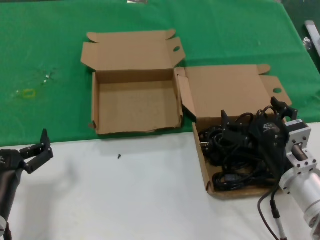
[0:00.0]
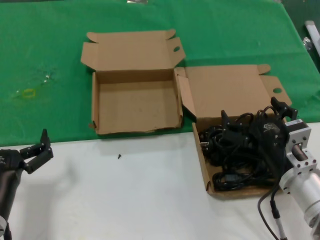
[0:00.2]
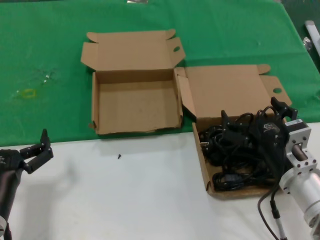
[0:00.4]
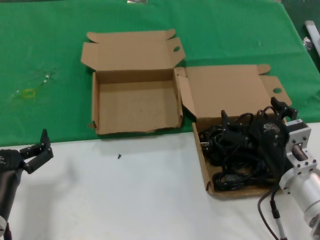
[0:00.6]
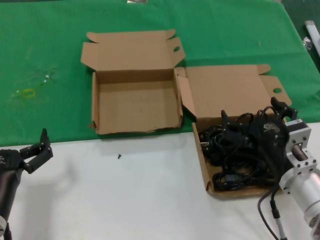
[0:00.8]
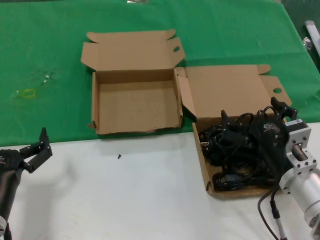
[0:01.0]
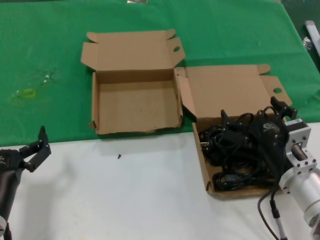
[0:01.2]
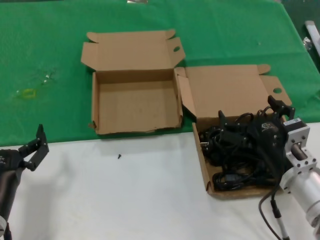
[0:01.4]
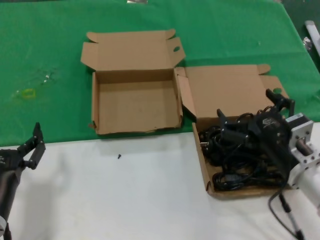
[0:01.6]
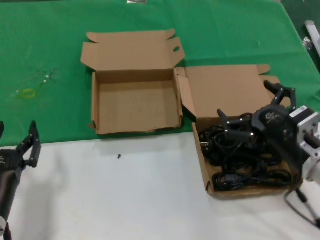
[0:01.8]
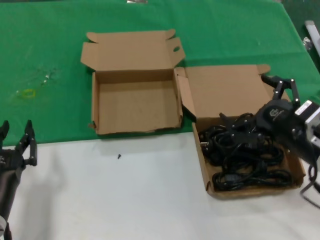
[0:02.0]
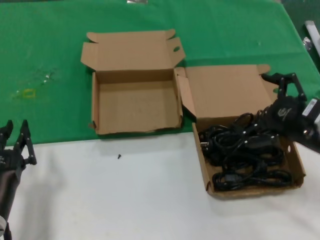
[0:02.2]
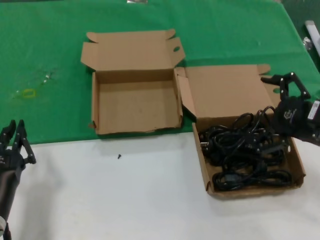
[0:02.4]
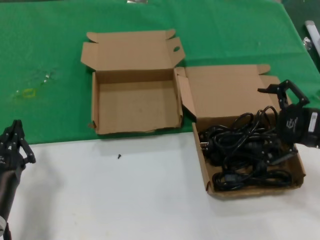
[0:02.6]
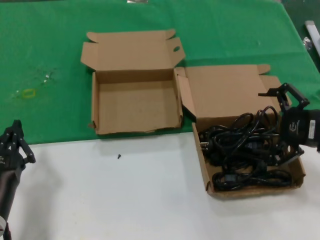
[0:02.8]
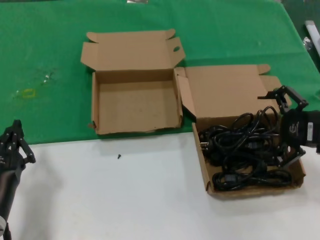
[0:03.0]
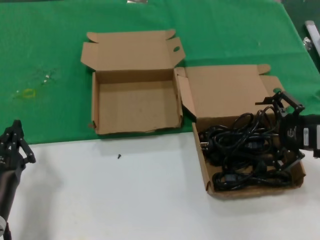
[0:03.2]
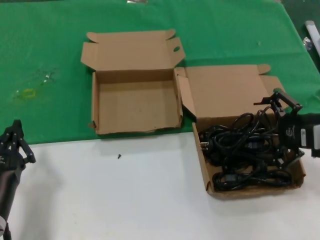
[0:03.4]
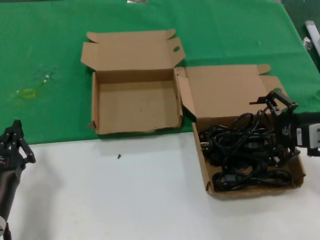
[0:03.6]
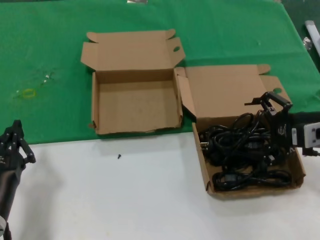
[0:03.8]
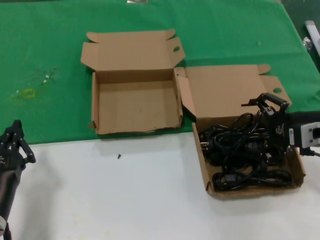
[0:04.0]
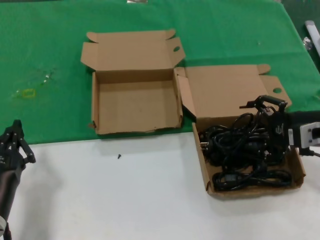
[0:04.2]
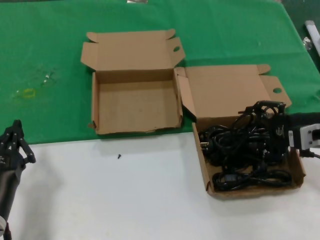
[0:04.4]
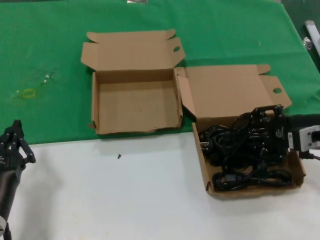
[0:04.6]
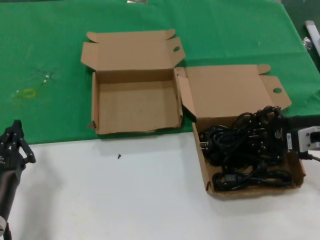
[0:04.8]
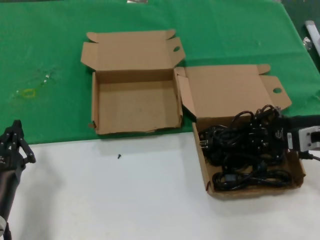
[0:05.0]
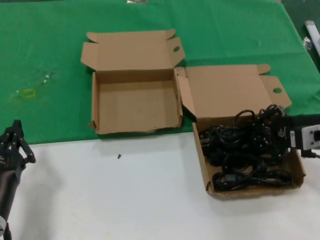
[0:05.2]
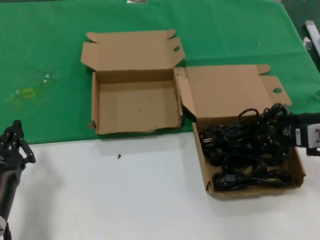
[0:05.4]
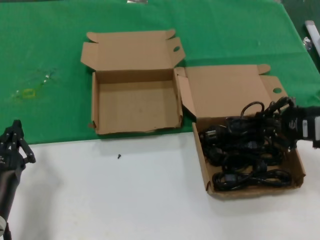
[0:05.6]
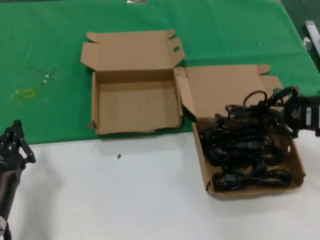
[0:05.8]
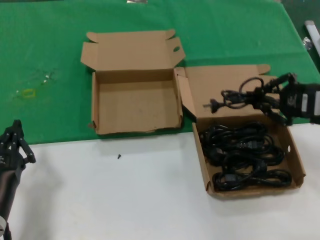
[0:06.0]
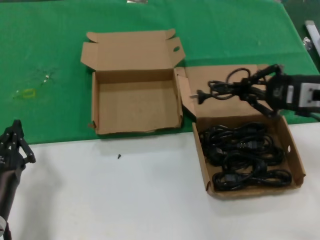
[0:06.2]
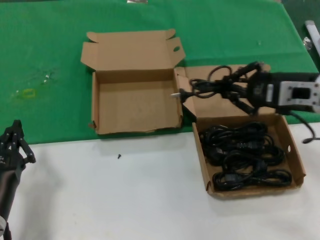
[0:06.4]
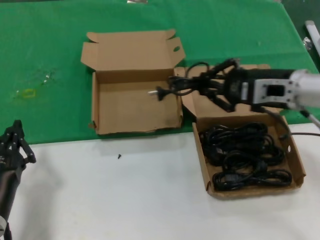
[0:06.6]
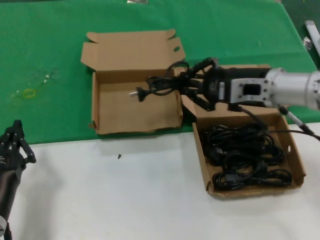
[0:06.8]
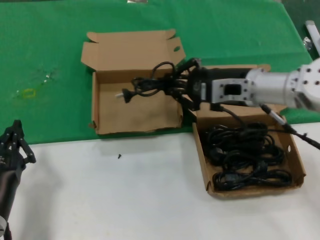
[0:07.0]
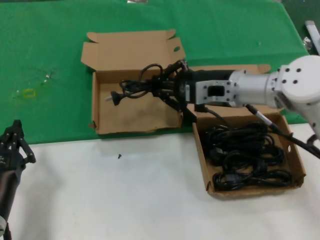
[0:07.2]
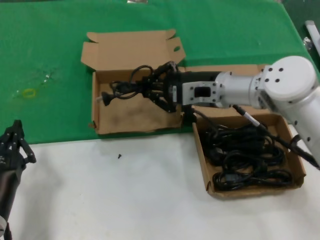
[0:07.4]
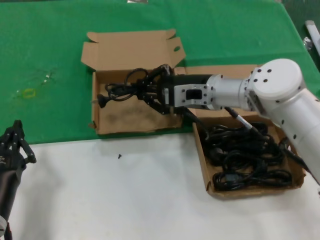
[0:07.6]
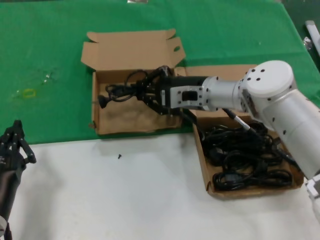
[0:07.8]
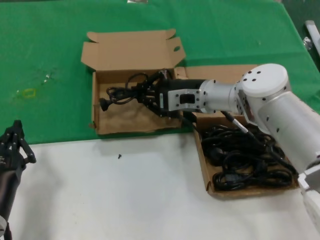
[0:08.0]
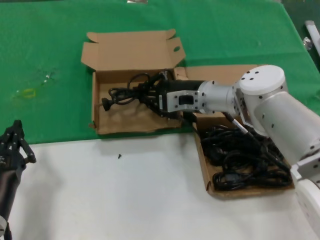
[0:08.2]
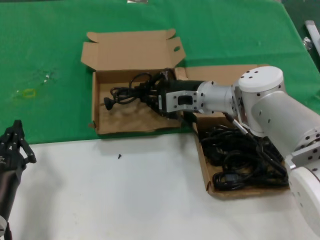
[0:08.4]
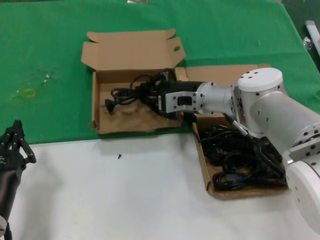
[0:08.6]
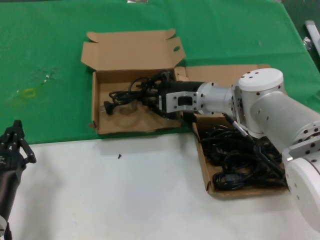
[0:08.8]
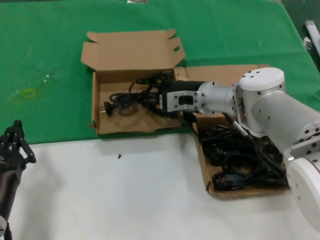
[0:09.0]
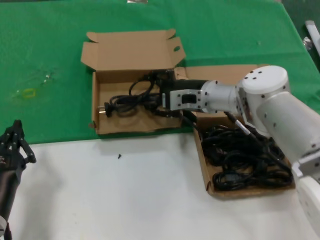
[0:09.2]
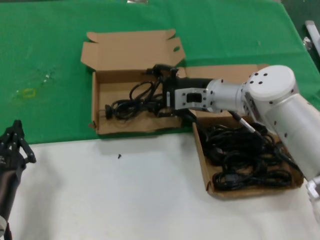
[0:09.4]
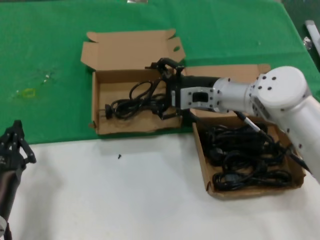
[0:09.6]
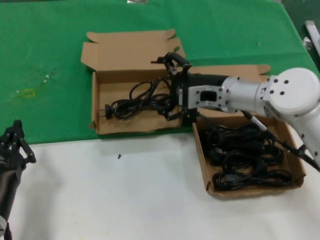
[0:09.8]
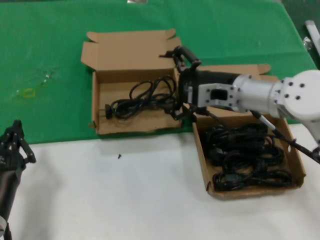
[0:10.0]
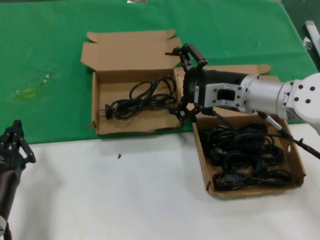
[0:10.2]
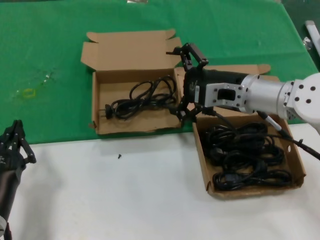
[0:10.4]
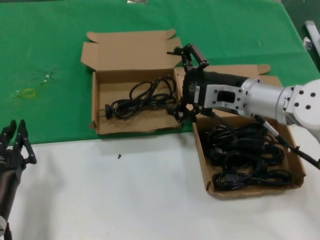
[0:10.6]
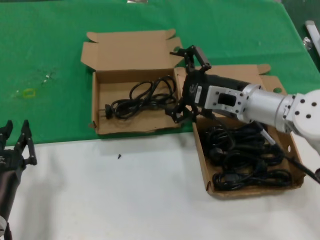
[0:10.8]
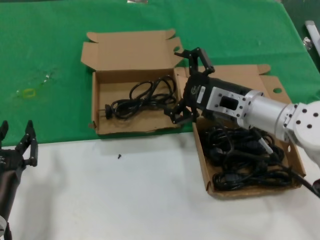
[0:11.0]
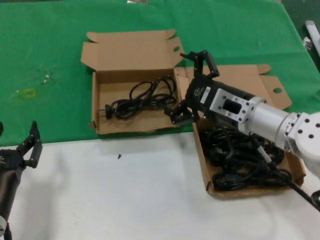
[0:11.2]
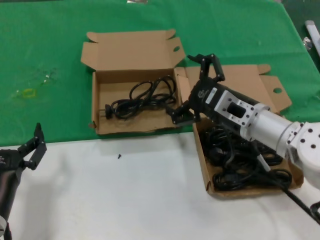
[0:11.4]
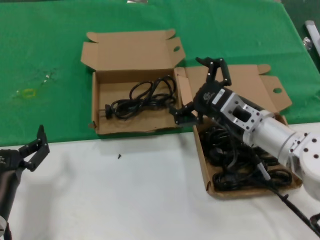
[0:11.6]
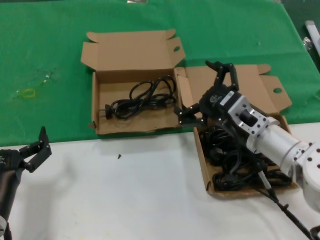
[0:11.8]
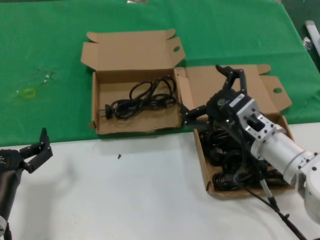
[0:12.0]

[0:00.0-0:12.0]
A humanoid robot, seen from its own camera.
Task of the whole recording: take the parts from the box containing them and put them into an empty box.
Step, 0:00.0 to 0:05.0: Grasp the data cable.
Step, 0:05.2 to 0:09.2: Place the data cable in the another box.
0:00.0 to 0:01.6: The hands move only a little.
0:01.6 to 0:03.0: The right hand moves to the right and upward, some 15 cm.
0:03.0 to 0:04.4: The right hand changes place by some 5 cm.
0:04.4 to 0:06.0: The right hand moves about 5 cm.
0:06.0 to 0:07.6: The right hand heads to the left and forward, covering approximately 25 cm.
0:07.6 to 0:09.0: The right hand changes place by some 5 cm.
0:09.0 to 0:10.4: The right hand shifts roughly 10 cm backward, upward and to the right.
0:10.4 to 0:12.0: The right hand moves downward and backward, roughly 10 cm.

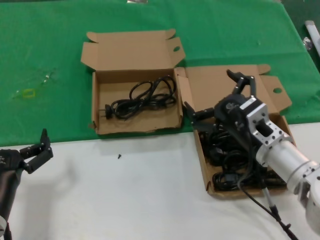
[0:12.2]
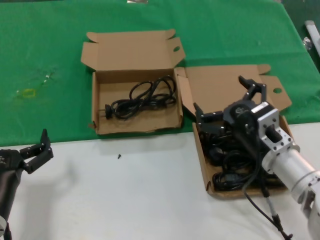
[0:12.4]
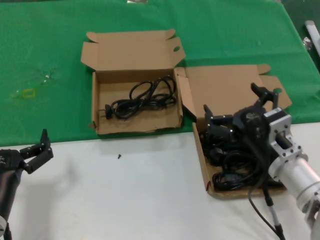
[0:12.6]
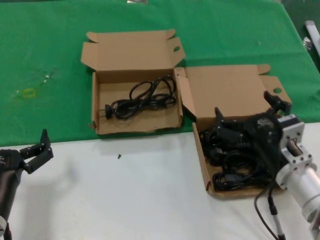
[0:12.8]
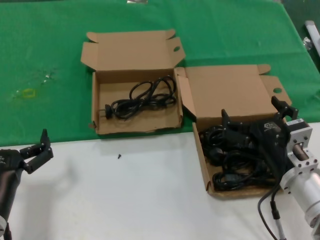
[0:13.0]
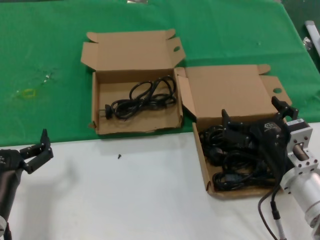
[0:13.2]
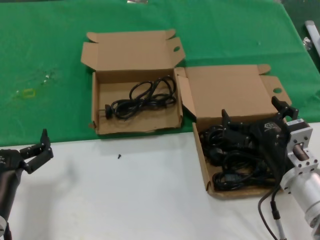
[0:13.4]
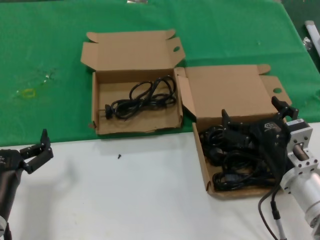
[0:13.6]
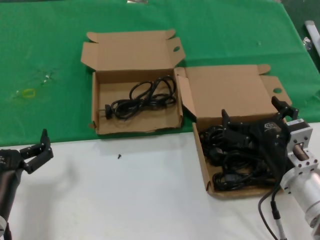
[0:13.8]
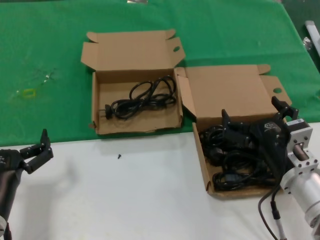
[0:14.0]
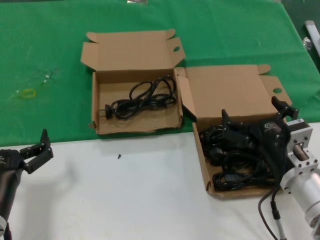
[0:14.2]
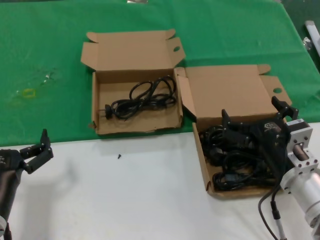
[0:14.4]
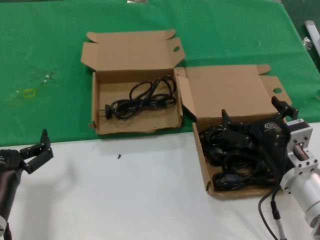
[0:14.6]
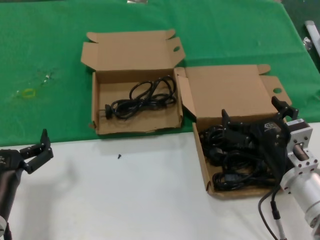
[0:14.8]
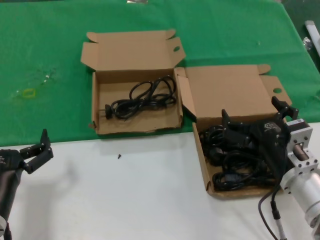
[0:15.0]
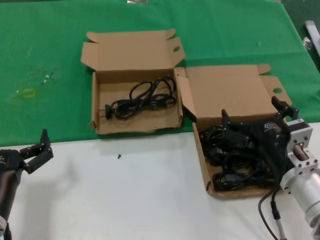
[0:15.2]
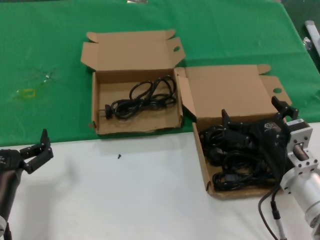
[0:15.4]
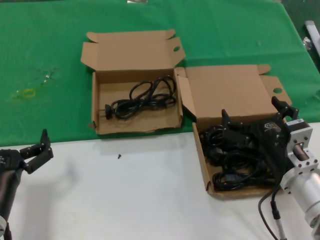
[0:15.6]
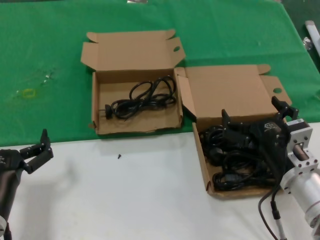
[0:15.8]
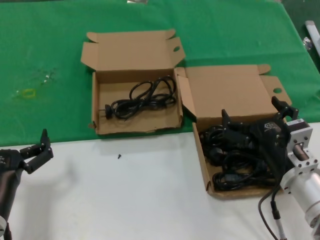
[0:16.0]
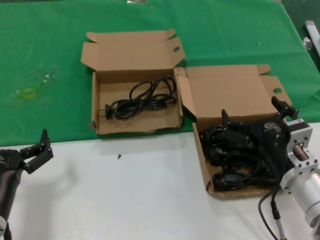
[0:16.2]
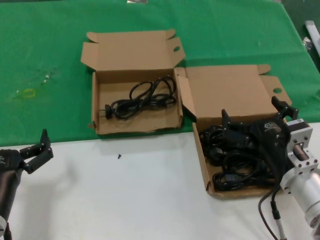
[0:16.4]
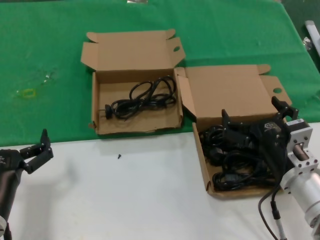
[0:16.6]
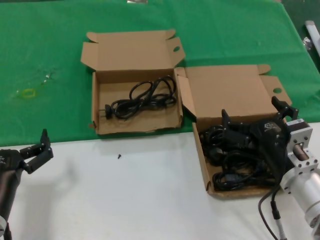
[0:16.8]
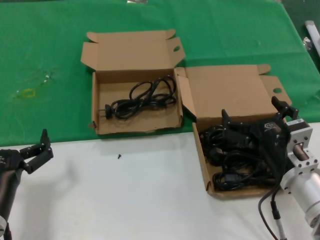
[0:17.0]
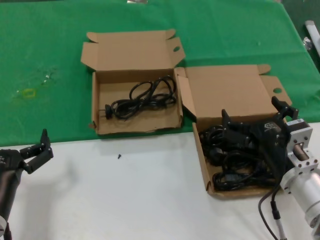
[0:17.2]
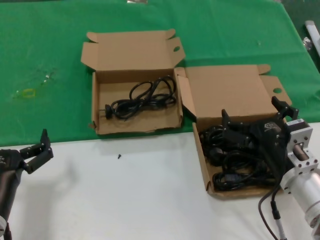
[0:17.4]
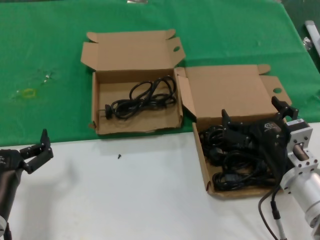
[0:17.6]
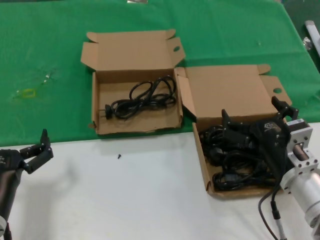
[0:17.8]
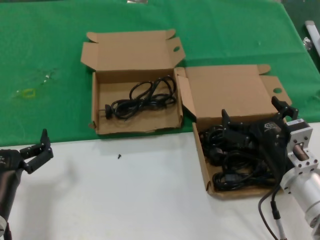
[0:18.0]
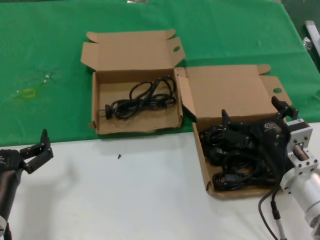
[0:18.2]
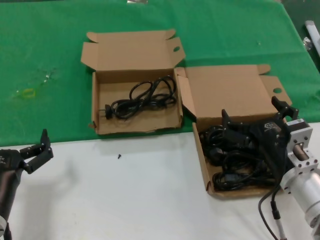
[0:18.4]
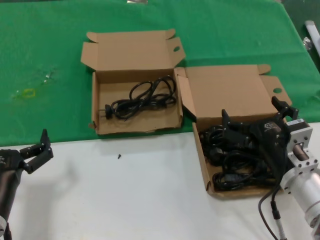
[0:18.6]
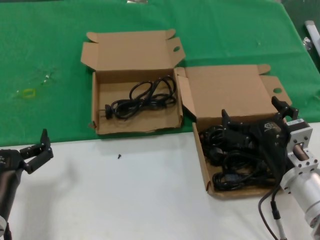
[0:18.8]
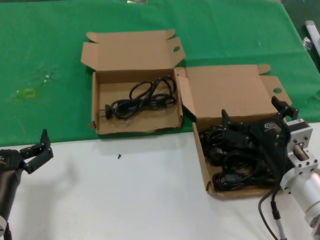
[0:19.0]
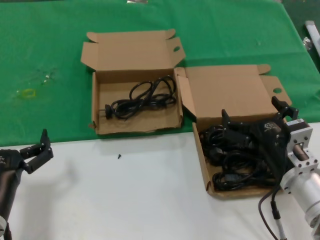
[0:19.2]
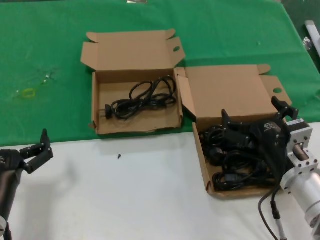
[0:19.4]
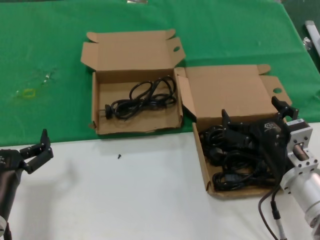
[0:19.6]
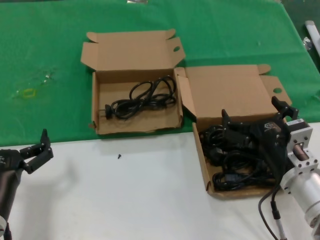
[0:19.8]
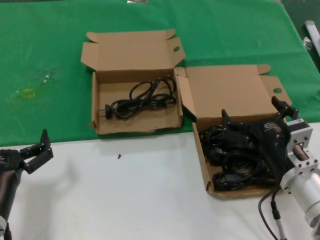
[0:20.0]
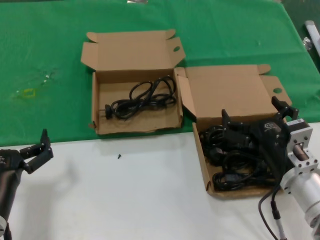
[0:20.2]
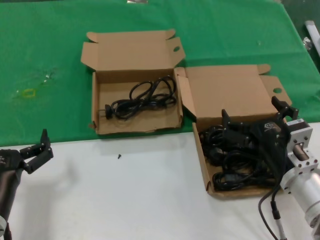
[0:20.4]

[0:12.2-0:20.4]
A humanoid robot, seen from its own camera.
Task of the whole recording: take the parts from the box containing them and put them into an empty box.
0:12.2 to 0:13.8: The right hand goes roughly 5 cm backward.
0:13.8 to 0:20.4: The two hands keep their place.

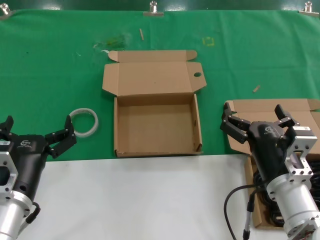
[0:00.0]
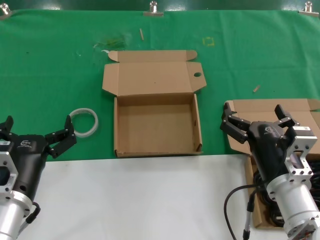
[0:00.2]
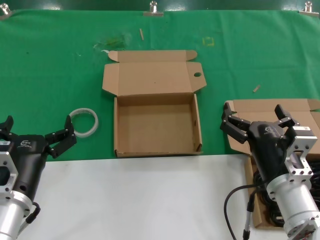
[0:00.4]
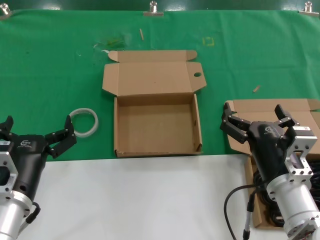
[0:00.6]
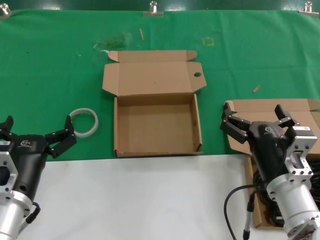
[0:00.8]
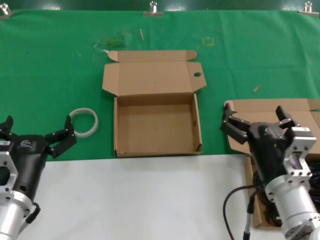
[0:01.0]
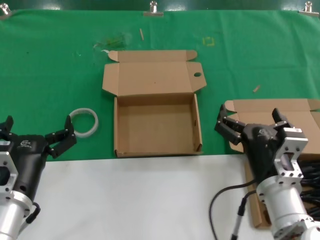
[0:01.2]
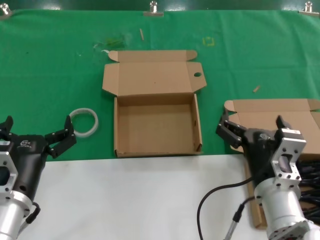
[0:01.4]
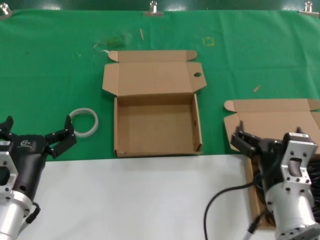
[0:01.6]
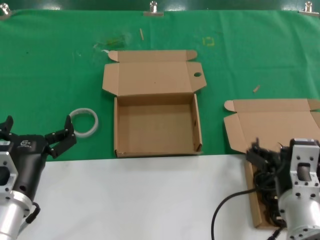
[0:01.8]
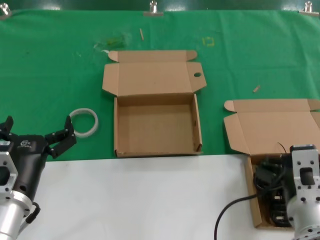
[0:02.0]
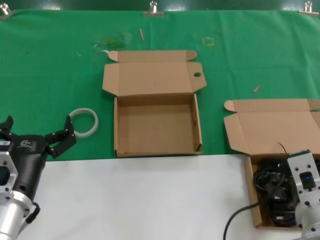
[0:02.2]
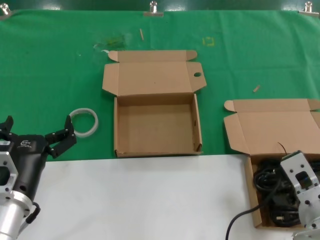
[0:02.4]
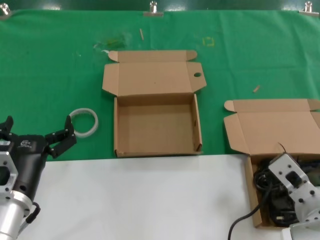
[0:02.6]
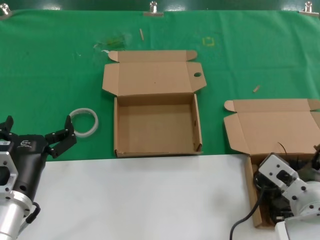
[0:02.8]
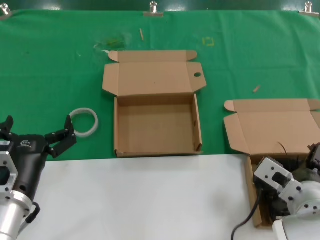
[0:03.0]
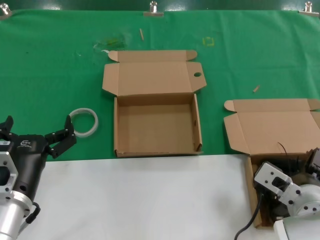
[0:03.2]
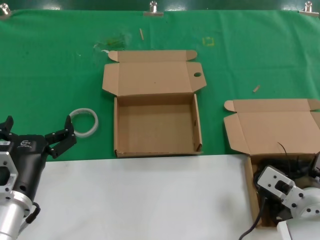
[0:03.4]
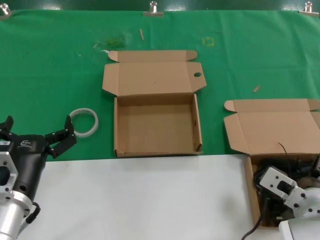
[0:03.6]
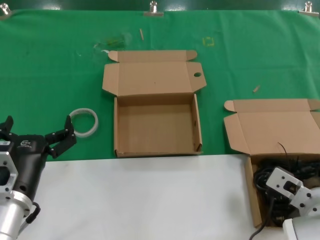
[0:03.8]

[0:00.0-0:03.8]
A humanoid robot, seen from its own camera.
Task of the whole recording: take the parts from the box containing them and put them into an empty box.
0:00.0 to 0:01.2: There are only small adjustments of the hands.
0:01.2 to 0:02.6: The right hand changes place by approximately 5 cm.
